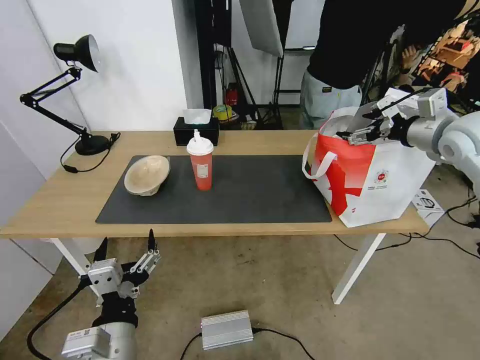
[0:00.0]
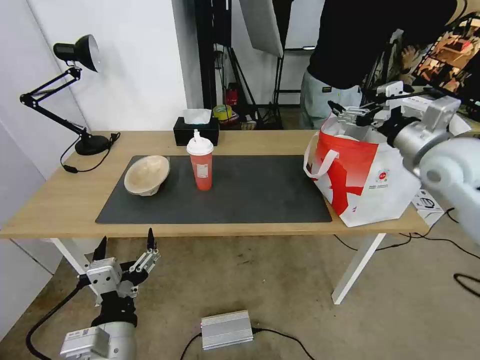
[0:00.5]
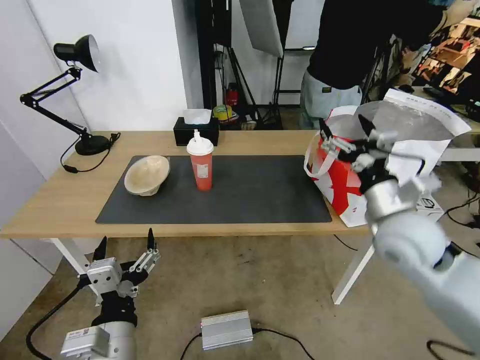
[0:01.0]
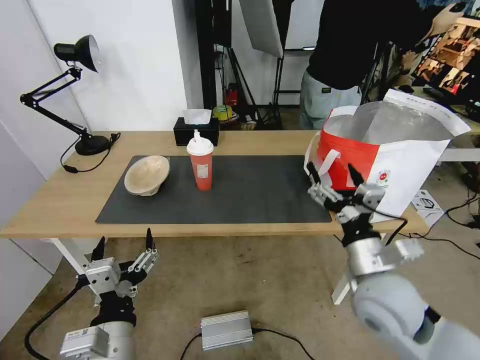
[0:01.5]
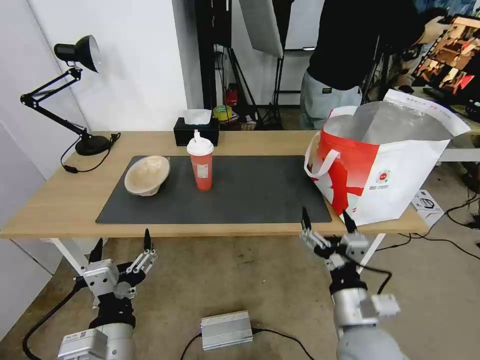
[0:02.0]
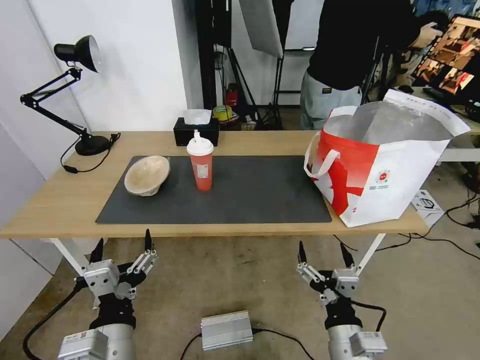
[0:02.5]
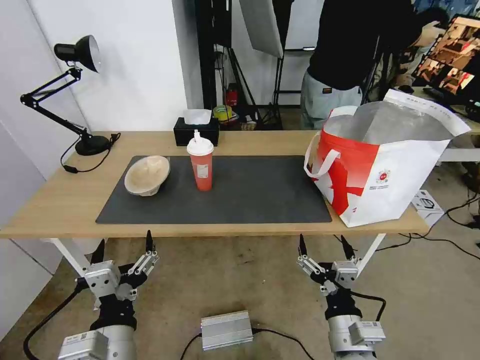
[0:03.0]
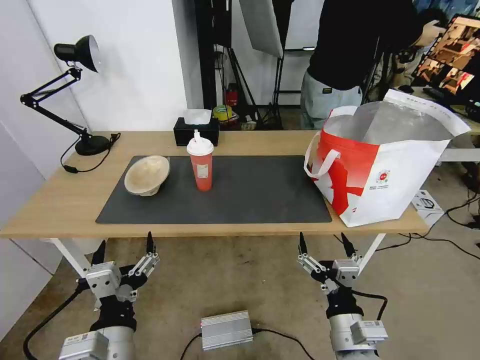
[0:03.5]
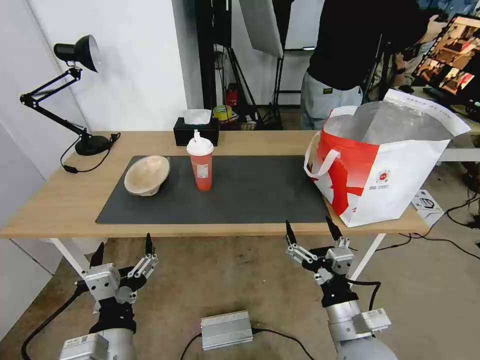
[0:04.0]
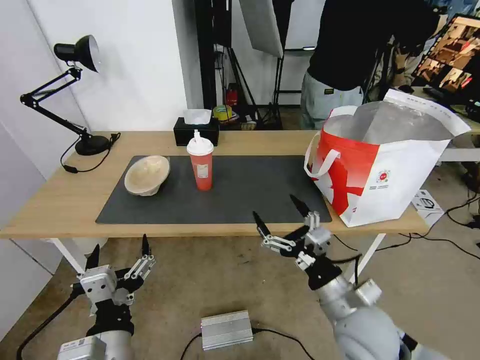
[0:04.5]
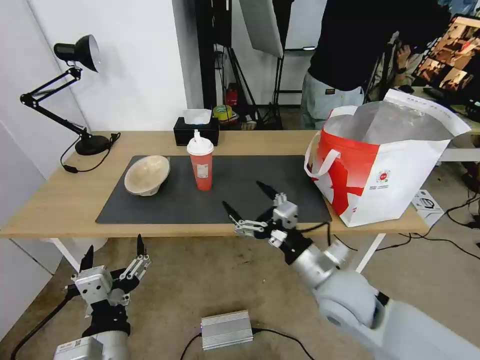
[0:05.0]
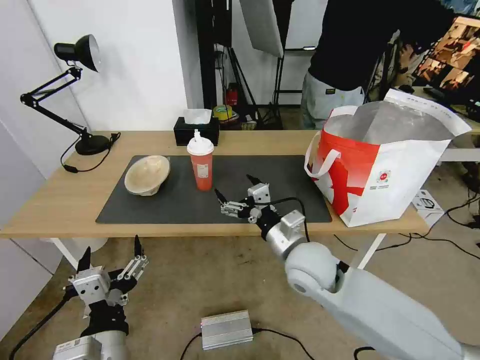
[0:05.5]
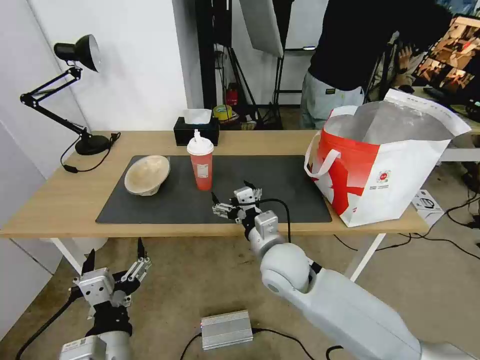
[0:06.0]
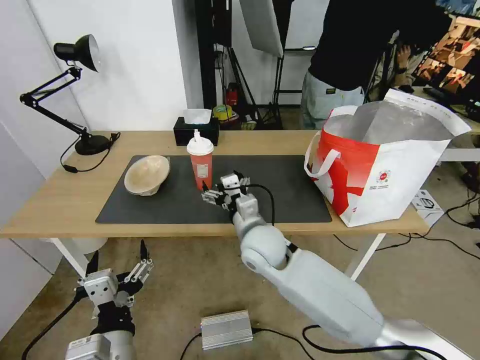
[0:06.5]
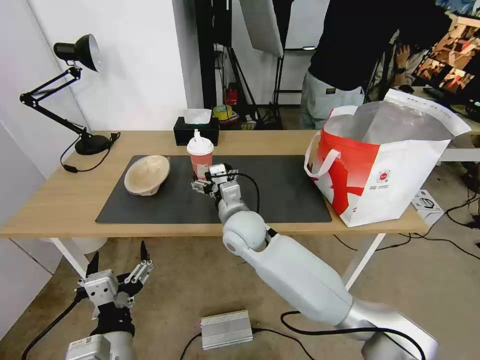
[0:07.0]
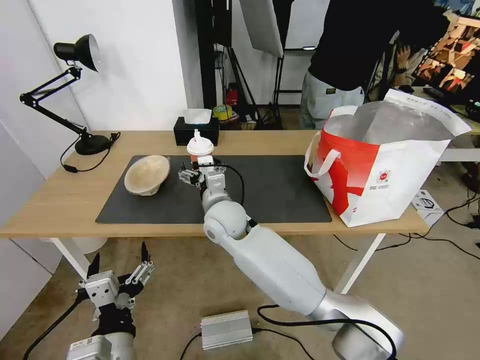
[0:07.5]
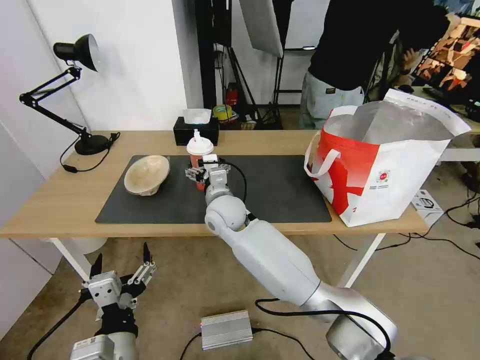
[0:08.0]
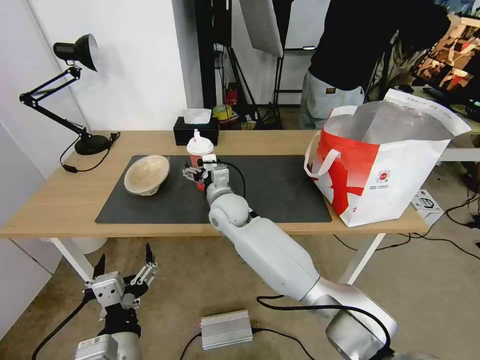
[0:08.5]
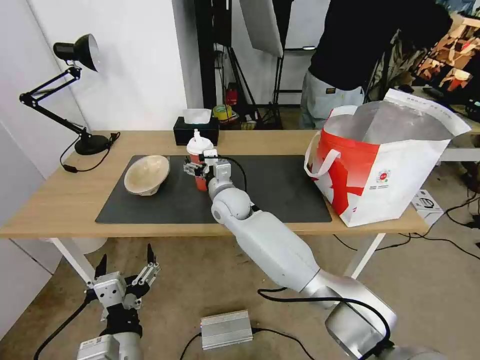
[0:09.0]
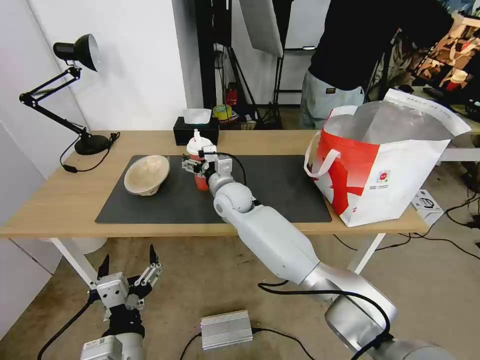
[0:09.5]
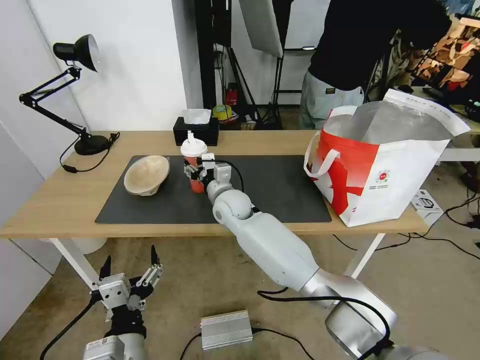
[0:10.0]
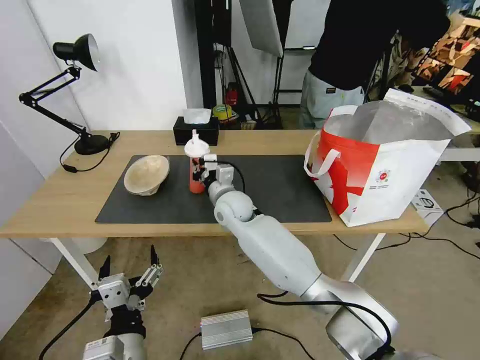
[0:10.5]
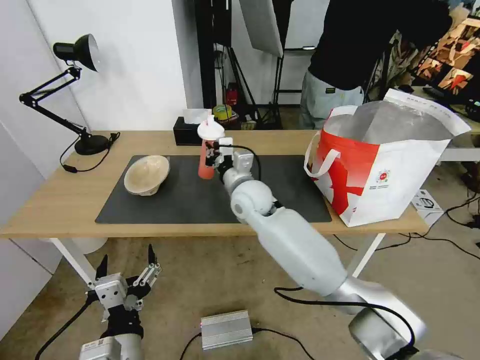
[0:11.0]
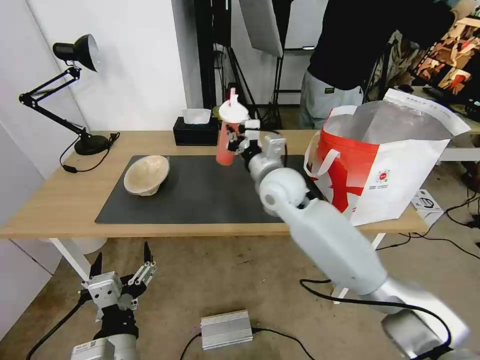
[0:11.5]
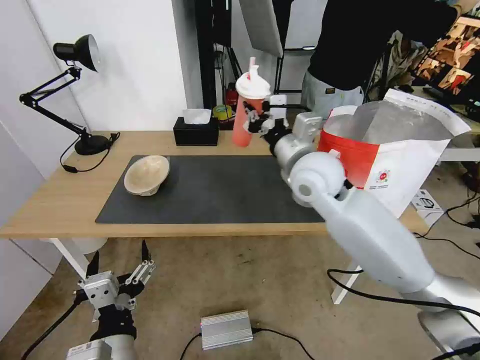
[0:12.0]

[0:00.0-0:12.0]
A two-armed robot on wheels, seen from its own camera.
Task of the whole recording: Pick up the trash from the table and place it into the takeout bag.
0:00.0 to 0:02.0: The right gripper is displaced backward, downward and to the left by some 40 cm.
0:04.0 to 0:06.0: The right gripper travels forward and to the left by approximately 20 cm.
0:06.0 to 0:08.0: The right gripper goes some 20 cm forward and to the left.
0:08.0 to 0:10.0: The right gripper shifts by some 5 cm, and closes its fingers.
0:10.0 to 0:12.0: The right gripper travels upward, to the right and backward by about 25 cm, and closes up.

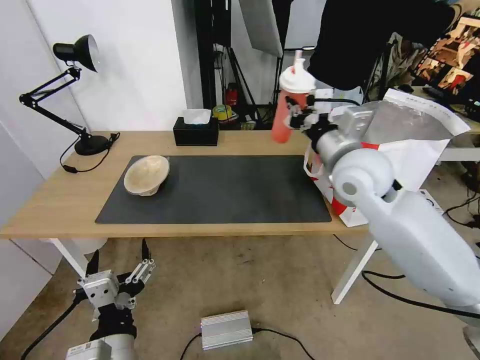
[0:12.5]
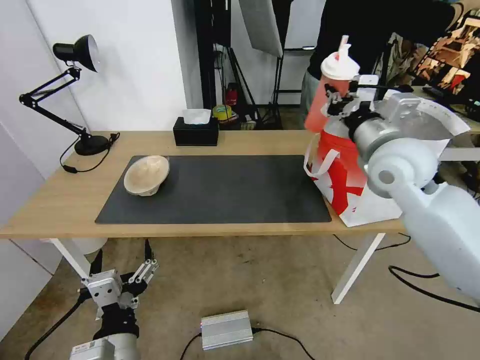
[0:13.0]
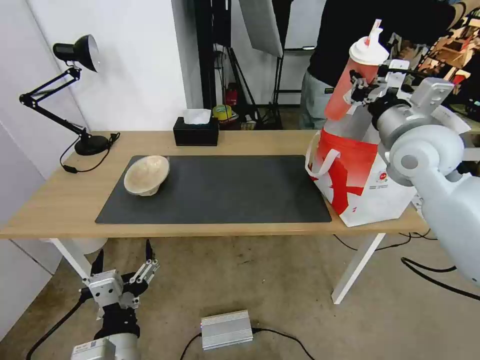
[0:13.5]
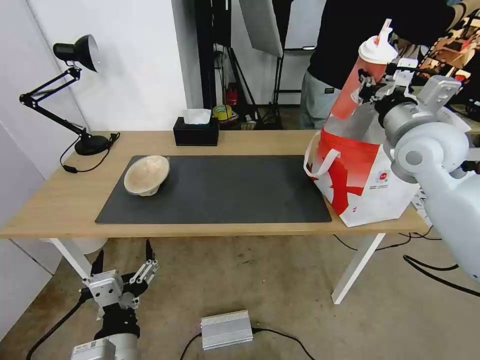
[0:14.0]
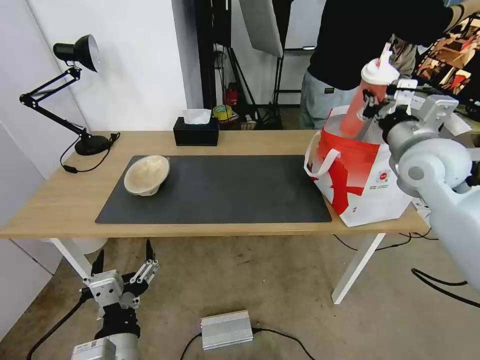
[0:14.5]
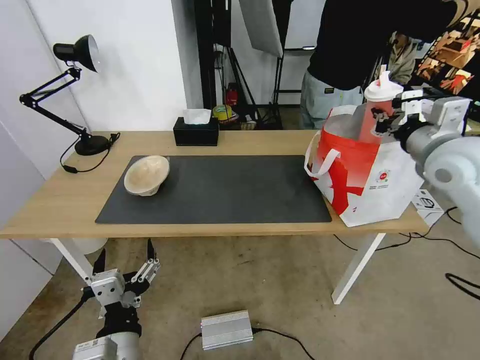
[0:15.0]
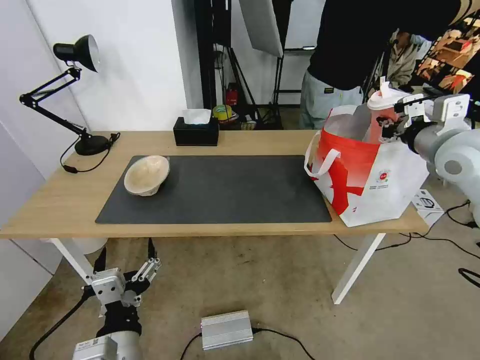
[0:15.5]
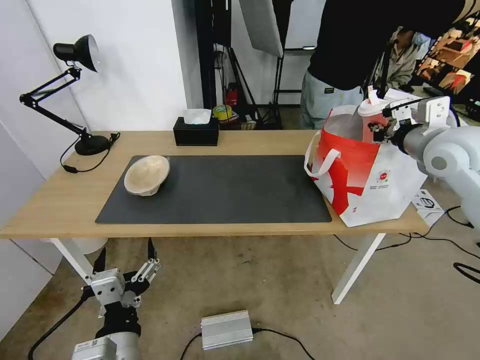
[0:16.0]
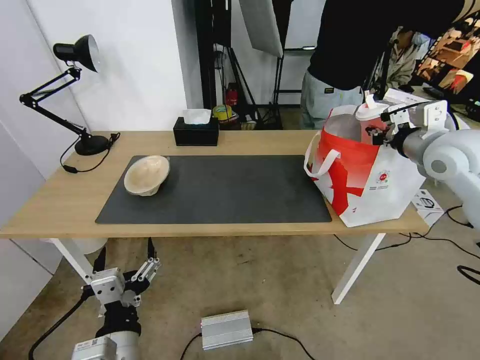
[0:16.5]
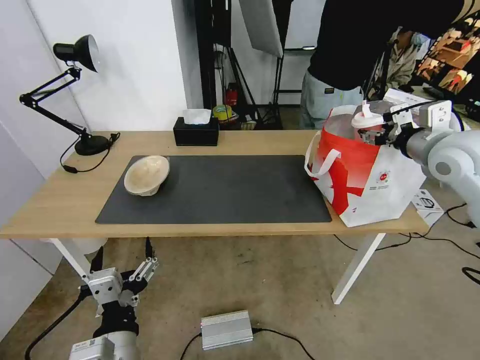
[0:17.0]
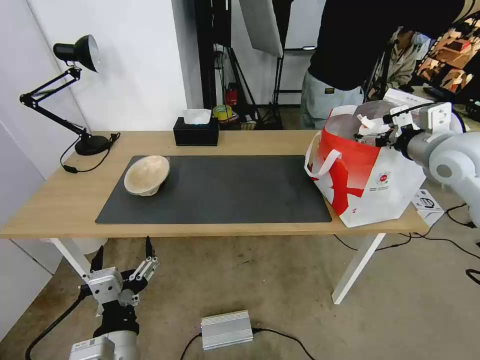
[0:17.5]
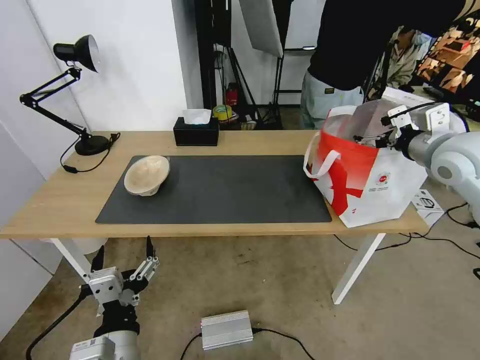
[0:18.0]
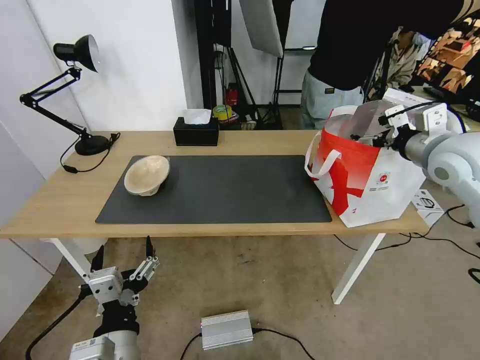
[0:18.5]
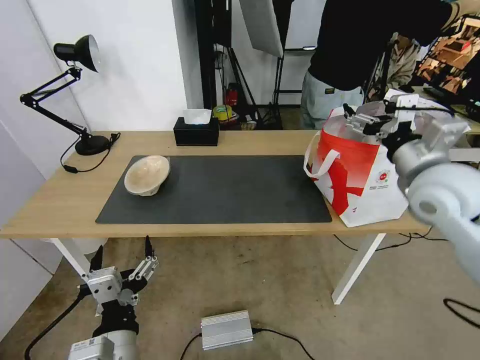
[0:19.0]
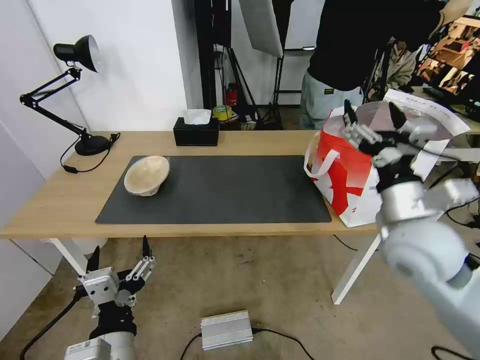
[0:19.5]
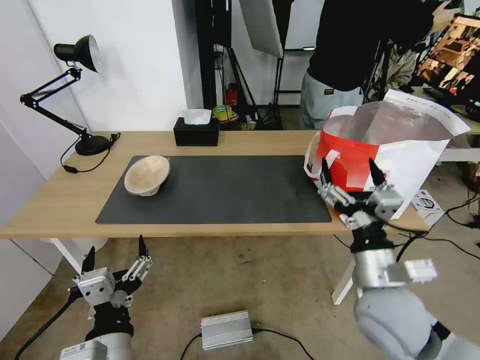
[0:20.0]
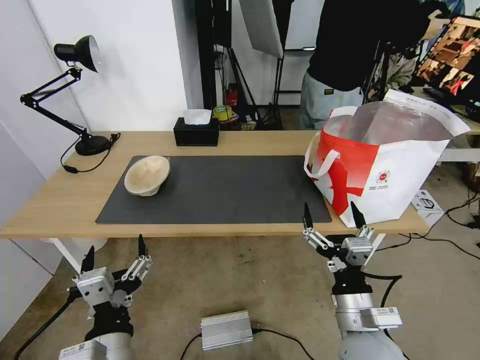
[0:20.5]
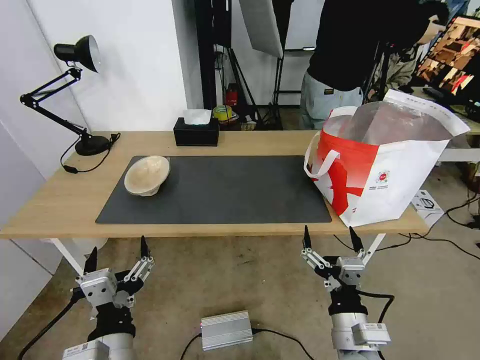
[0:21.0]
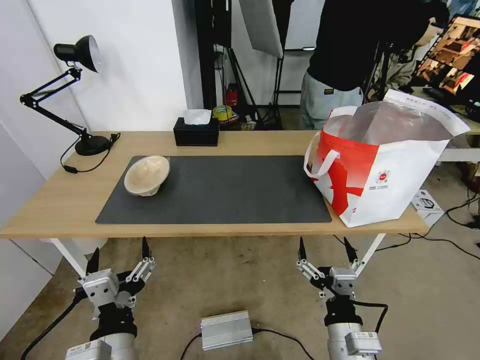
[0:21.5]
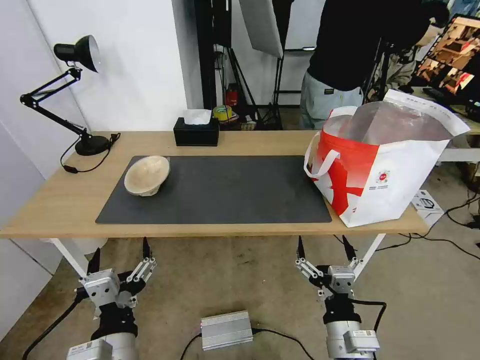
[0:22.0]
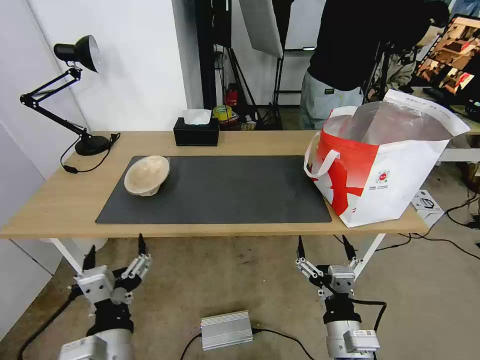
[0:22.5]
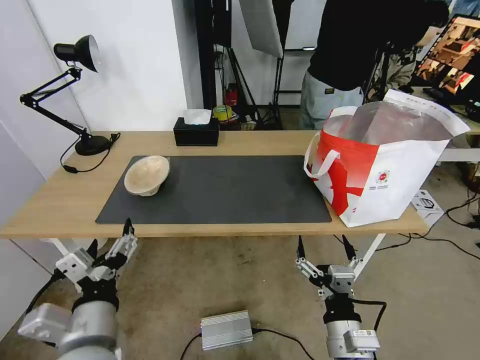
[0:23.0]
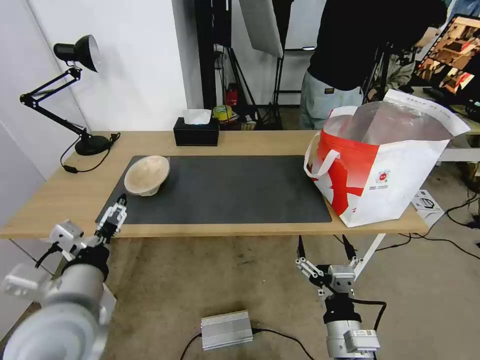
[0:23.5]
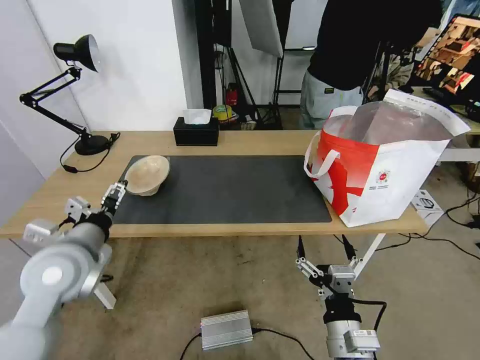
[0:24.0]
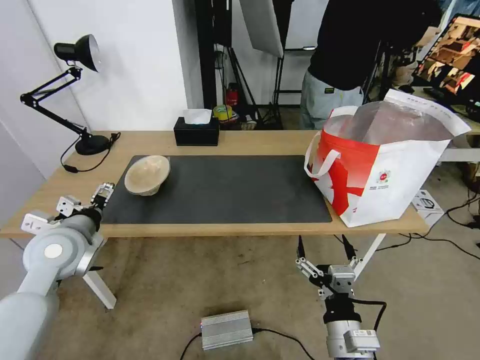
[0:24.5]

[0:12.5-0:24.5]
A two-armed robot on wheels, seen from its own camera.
Task of the whole recording: Pick up the trash from the table and place it into the takeout bag.
0:12.5 to 0:14.5: The right gripper shifts some 10 cm to the right.
0:16.5 to 0:18.5: The right gripper opens.
0:18.5 to 0:20.5: The right gripper shifts some 40 cm backward, downward and to the left.
0:20.5 to 0:22.5: The right gripper changes place by about 5 cm.
0:22.5 to 0:24.5: The left gripper goes some 25 cm forward and to the left.

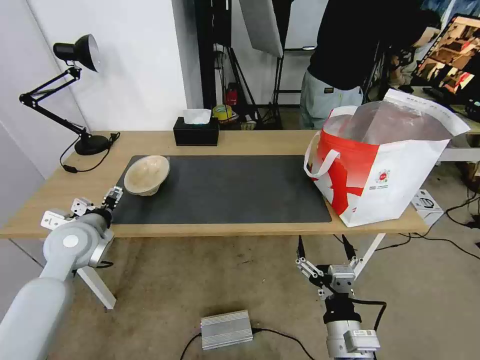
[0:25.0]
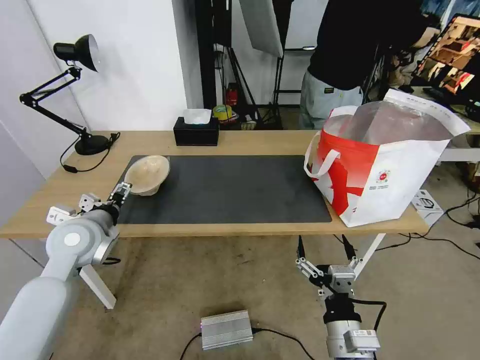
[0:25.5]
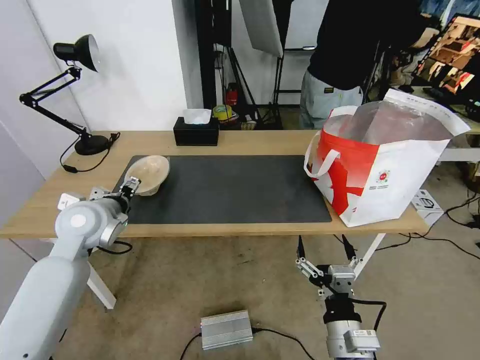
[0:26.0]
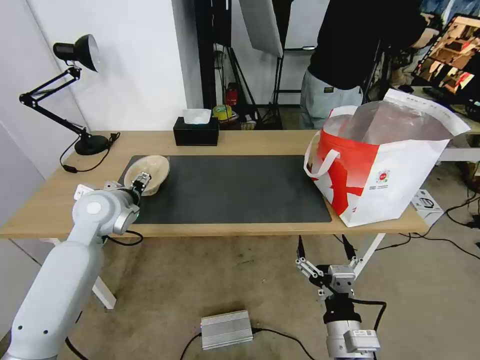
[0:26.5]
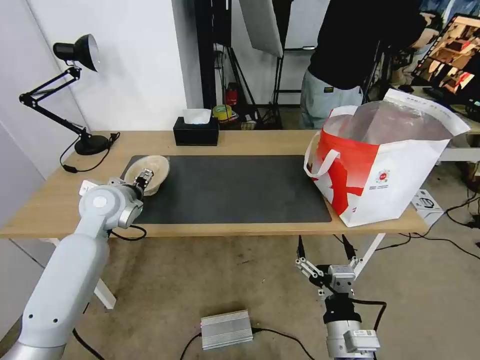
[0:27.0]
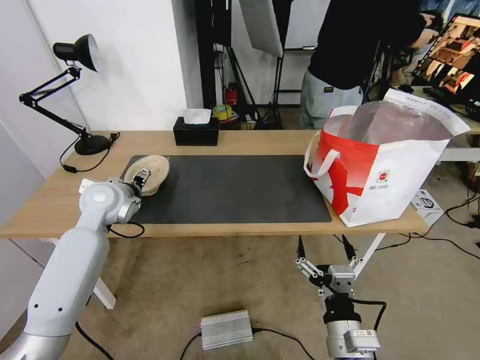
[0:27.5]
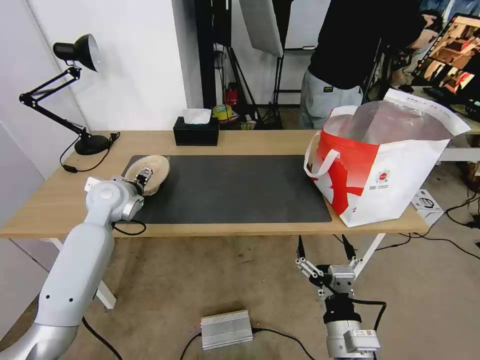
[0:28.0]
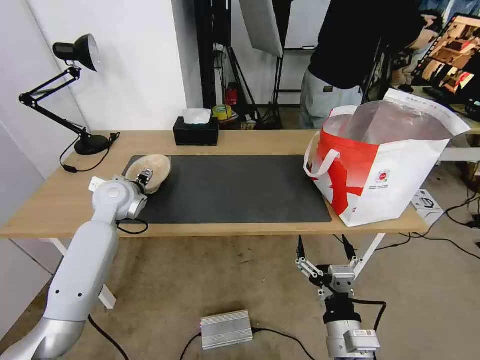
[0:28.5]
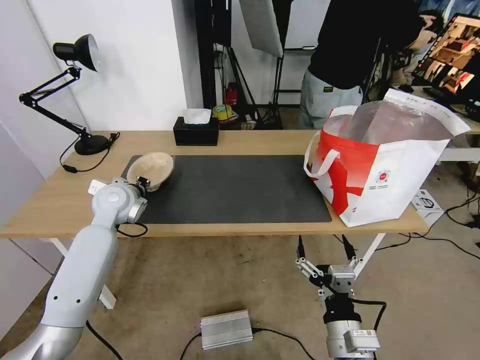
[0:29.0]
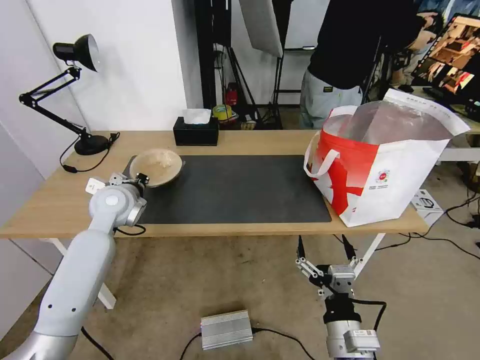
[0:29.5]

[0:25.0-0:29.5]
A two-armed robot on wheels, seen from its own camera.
Task of the whole recording: Pick up the trash from the table and place it into the takeout bag.
0:25.0 to 0:27.0: The left gripper moves forward and to the right, approximately 10 cm.
0:27.0 to 0:29.5: The left gripper closes.
